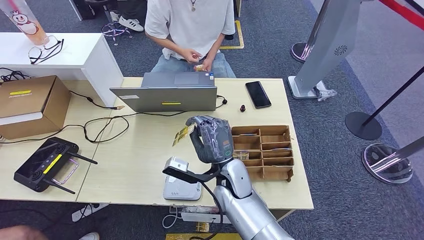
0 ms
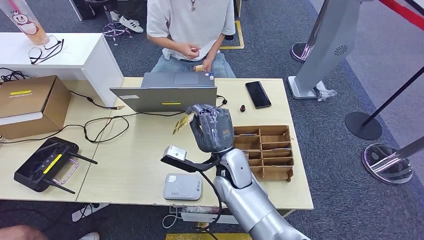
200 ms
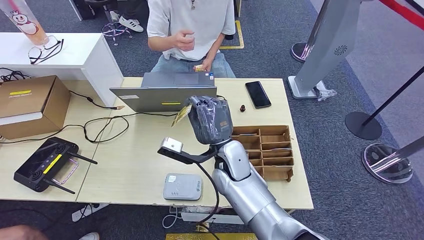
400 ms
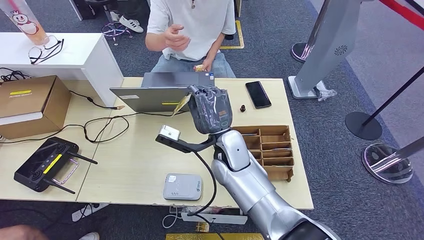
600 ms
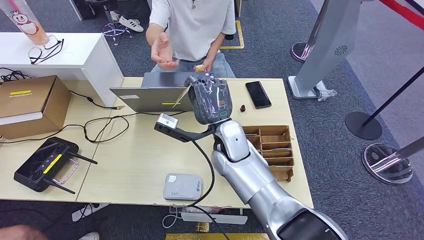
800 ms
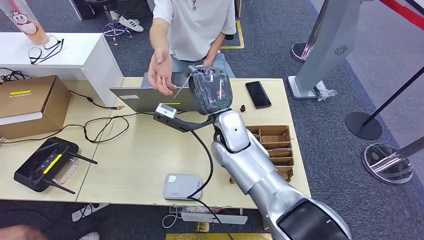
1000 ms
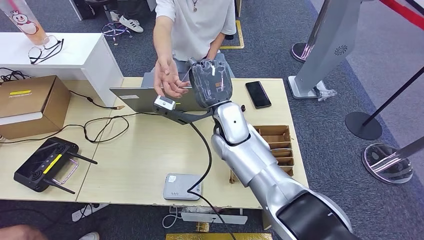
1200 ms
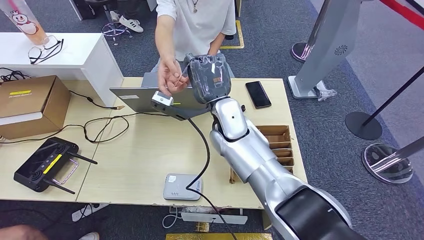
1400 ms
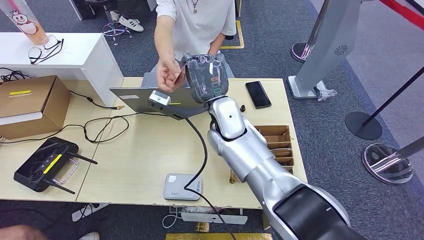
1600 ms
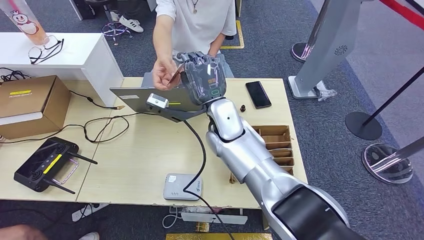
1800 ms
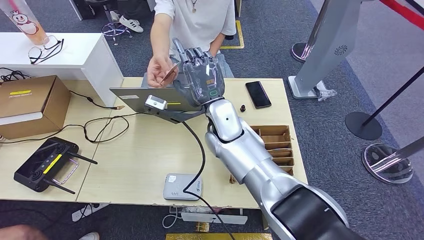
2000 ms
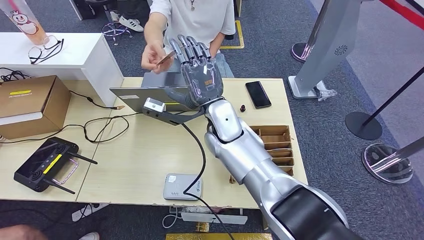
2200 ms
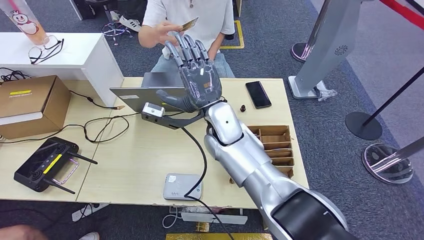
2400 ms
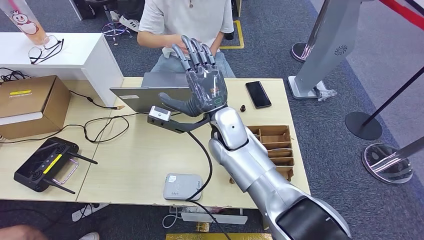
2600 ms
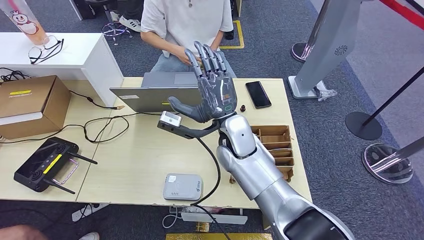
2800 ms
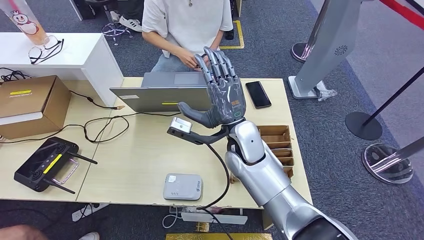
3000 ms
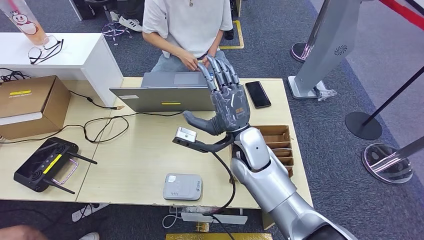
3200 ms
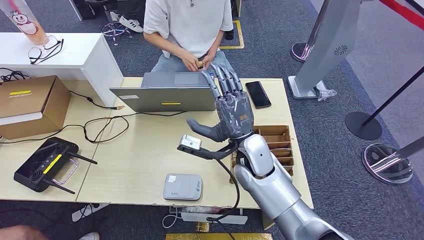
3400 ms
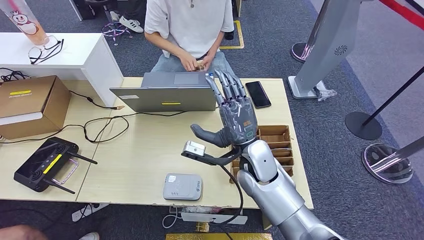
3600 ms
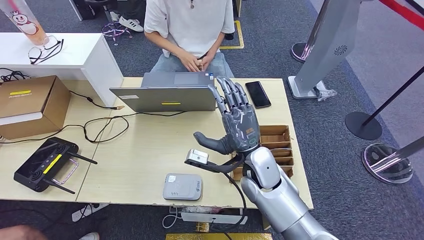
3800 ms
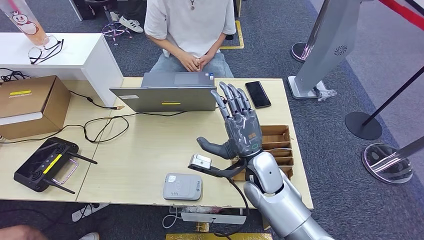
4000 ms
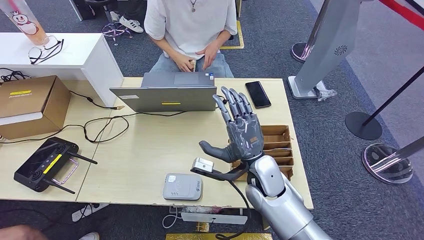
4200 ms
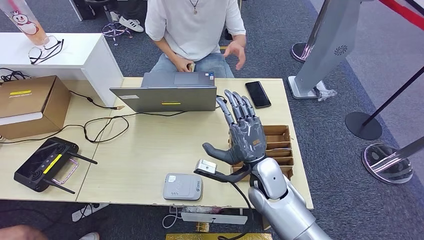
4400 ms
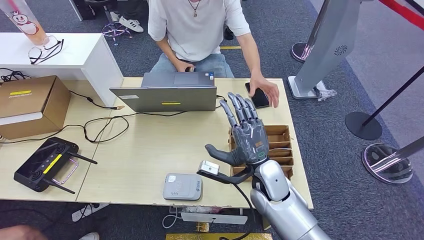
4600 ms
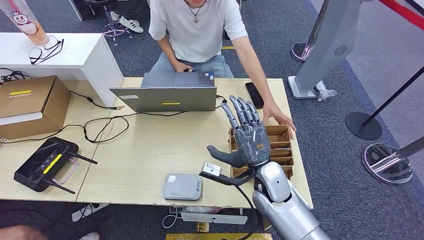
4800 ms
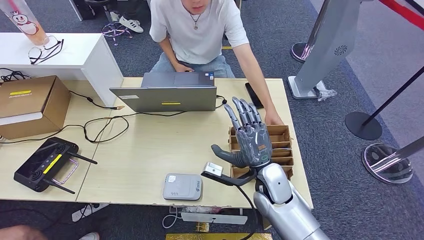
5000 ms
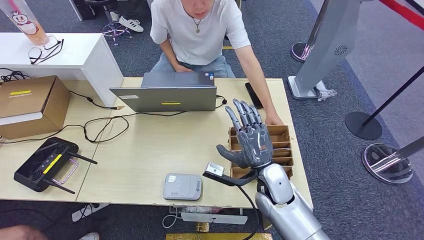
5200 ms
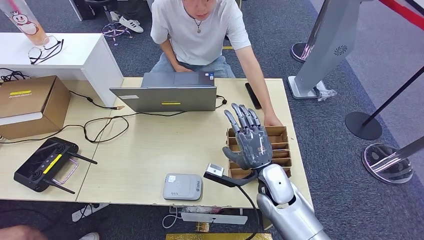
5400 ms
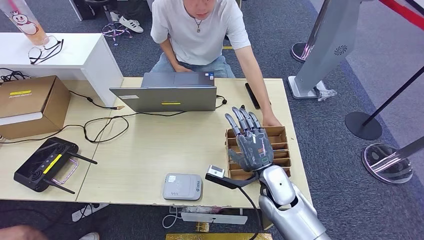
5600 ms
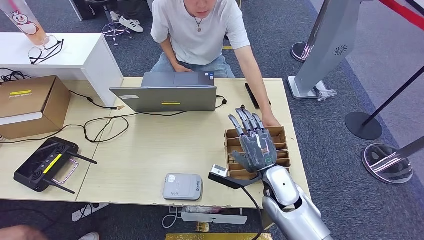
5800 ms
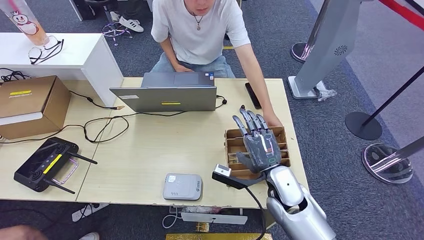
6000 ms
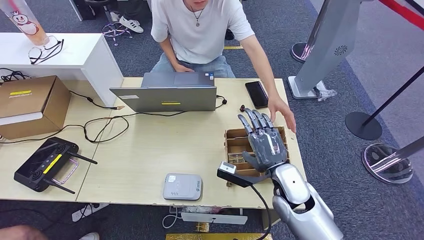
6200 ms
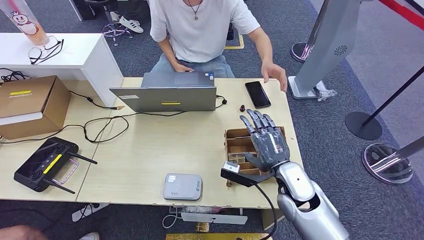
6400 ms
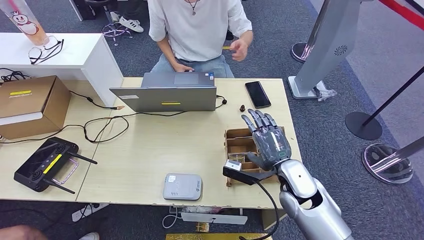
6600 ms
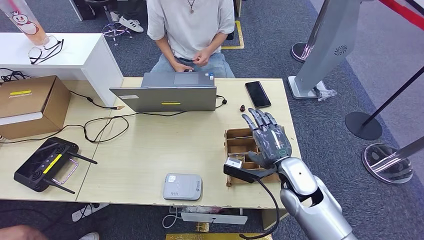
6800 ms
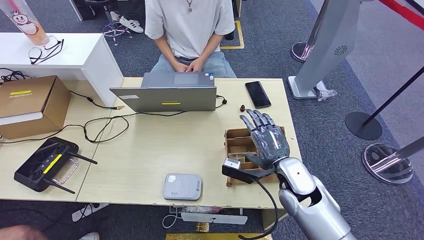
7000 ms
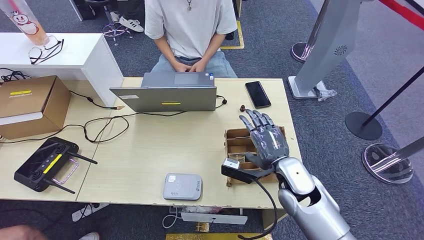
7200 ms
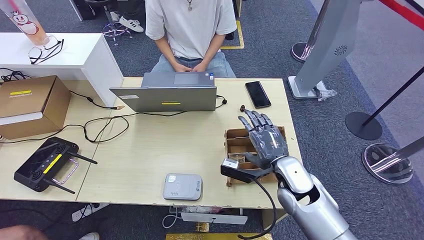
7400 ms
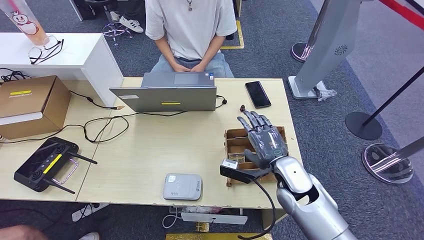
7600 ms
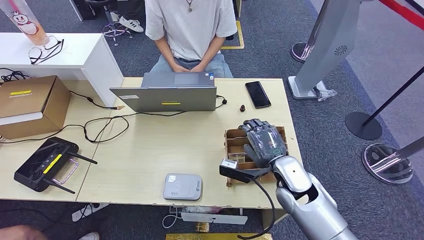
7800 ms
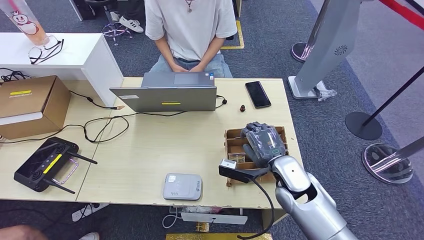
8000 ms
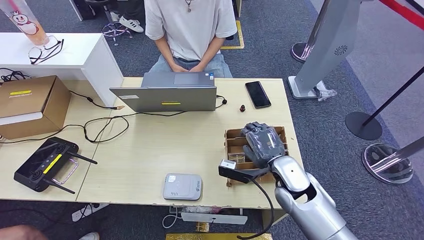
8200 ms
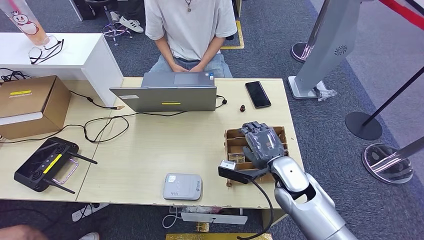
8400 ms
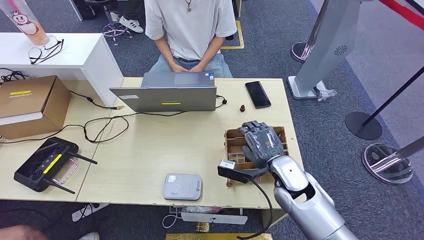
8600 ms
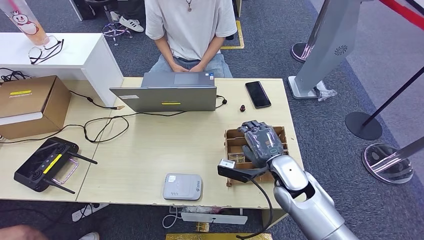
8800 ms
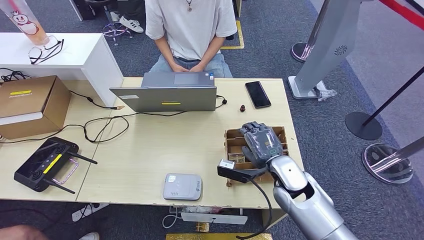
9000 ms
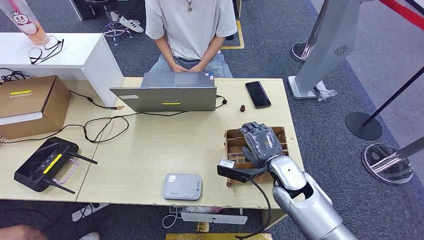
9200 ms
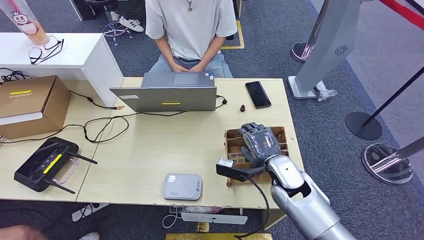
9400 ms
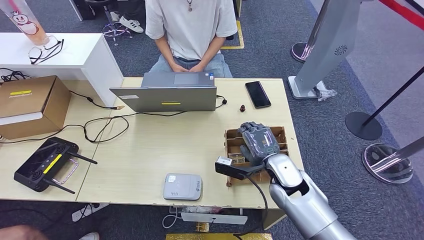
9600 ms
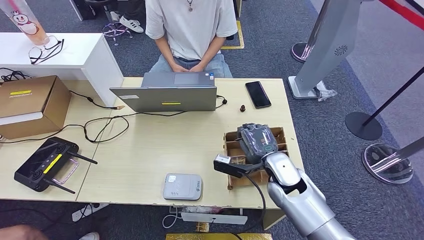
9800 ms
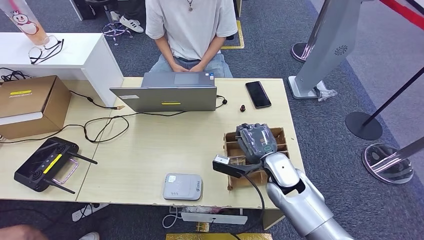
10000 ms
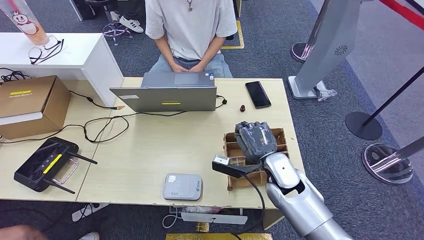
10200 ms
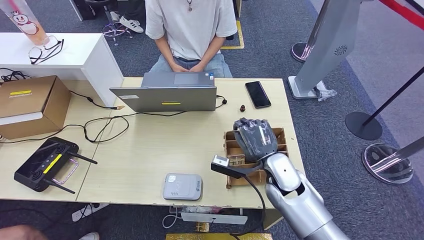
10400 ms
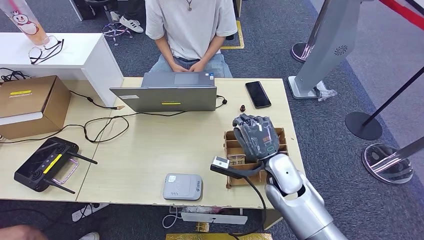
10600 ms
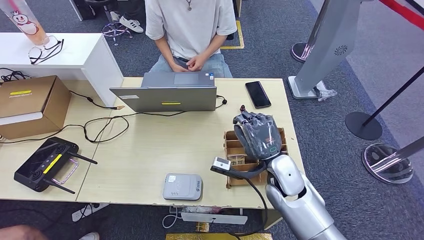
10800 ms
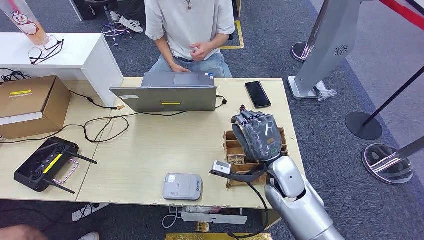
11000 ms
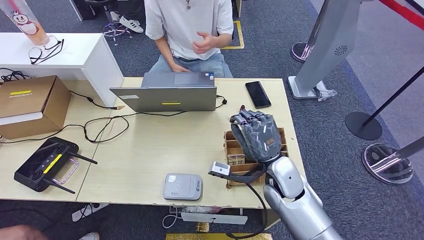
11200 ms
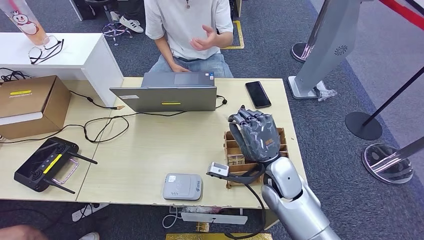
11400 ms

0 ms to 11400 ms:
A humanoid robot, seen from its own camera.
Step, 0 ms to 2600 ms: Hand the ID card to the person.
Step, 7200 ms to 10400 ms: Pick up the room key from the key card box.
0 ms to 1400 ms: The right hand moves upward and forward, some 15 cm.
1400 ms to 2800 ms: The hands make only small movements.
2800 ms to 4200 ms: The right hand goes some 10 cm downward, backward and to the right.
4200 ms to 5600 ms: The right hand ends up approximately 5 cm from where it was.
5600 ms to 7200 ms: The right hand ends up approximately 5 cm from where it was.
7200 ms to 8600 ms: Neither hand changes place.
8600 ms to 10000 ms: There are only small adjustments of the hands.

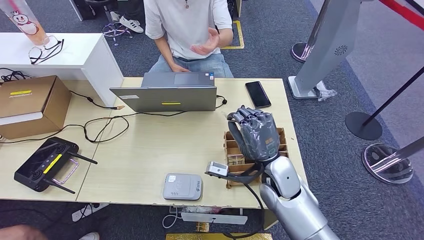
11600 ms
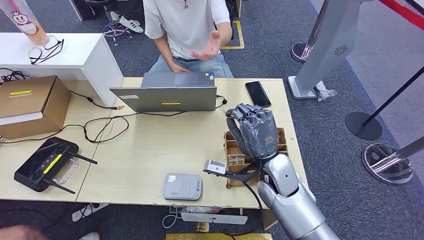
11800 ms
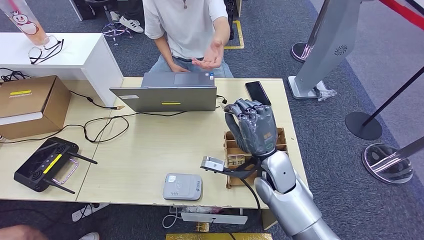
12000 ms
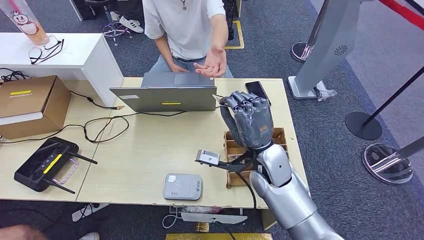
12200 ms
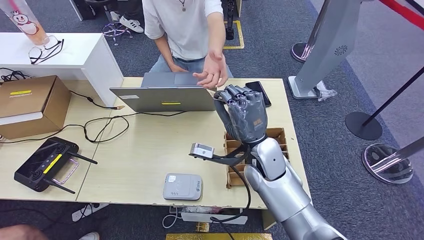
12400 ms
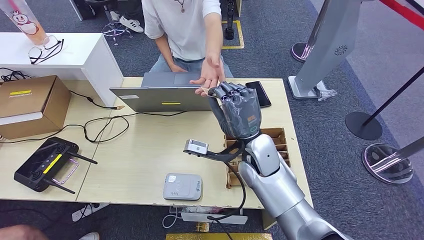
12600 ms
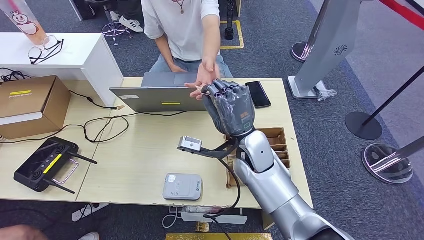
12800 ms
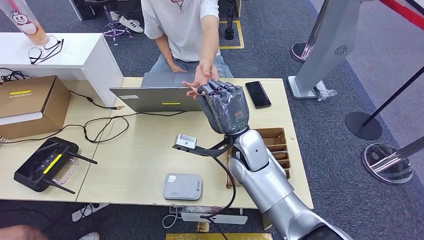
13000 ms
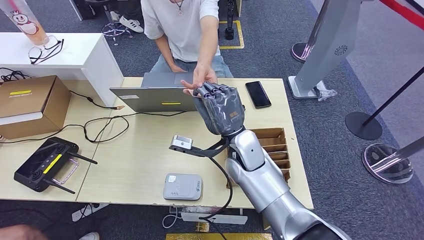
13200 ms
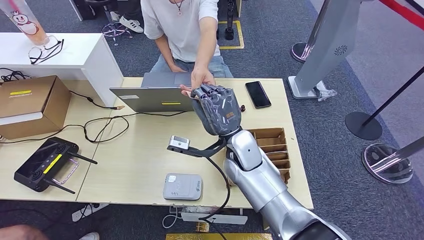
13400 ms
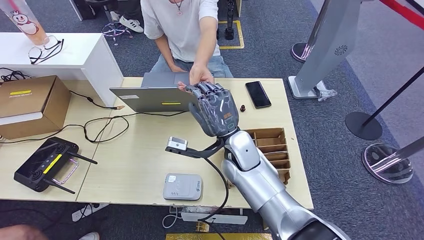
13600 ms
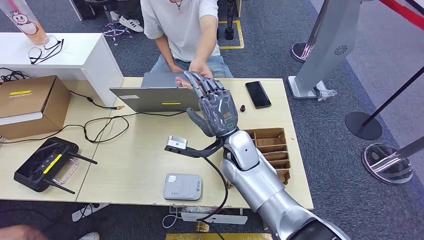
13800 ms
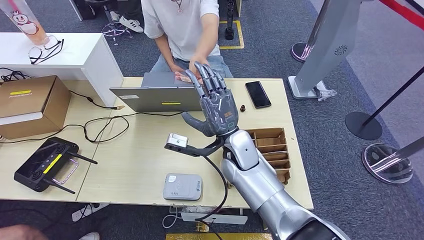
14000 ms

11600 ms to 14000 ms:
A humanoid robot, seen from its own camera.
Step, 11600 ms to 14000 ms: Hand the room key to the person.
11600 ms to 12800 ms: The right hand goes about 5 cm to the left.
12800 ms to 14000 ms: The hands make only small movements.

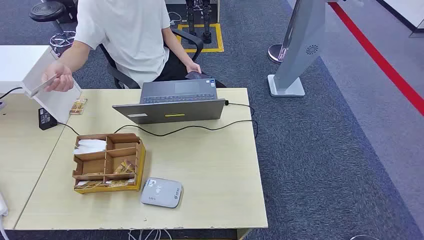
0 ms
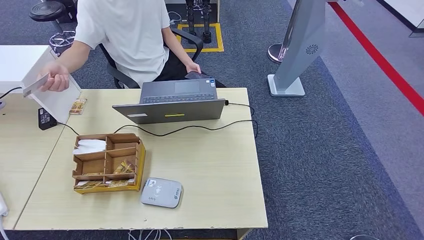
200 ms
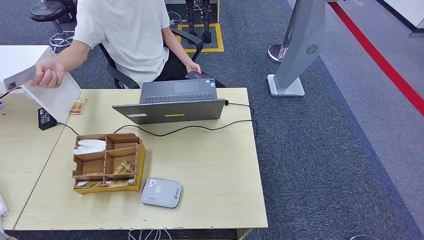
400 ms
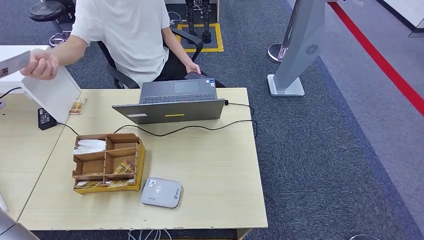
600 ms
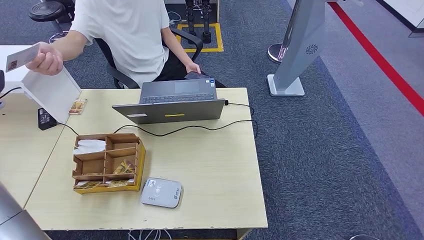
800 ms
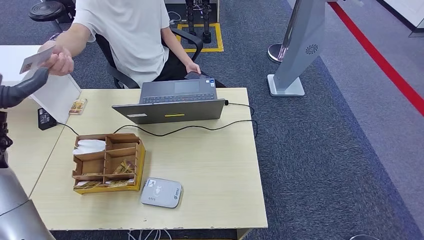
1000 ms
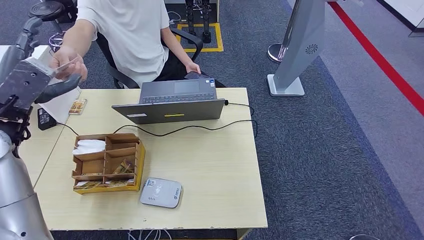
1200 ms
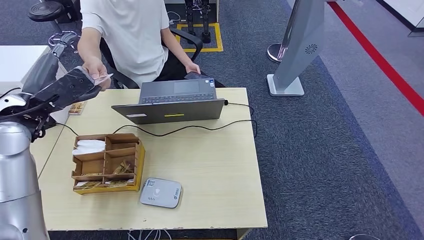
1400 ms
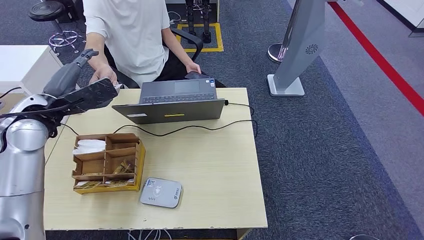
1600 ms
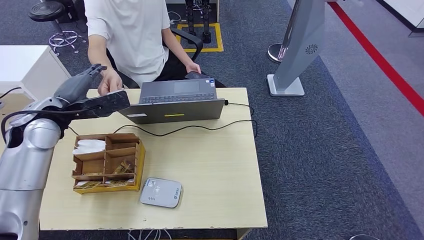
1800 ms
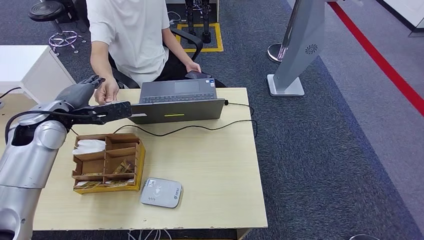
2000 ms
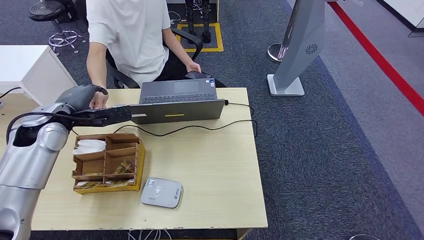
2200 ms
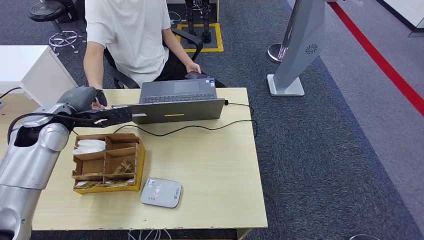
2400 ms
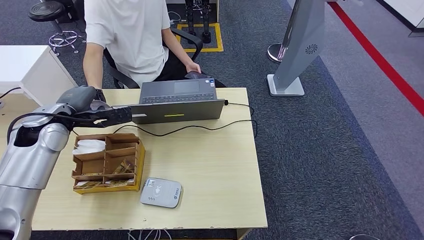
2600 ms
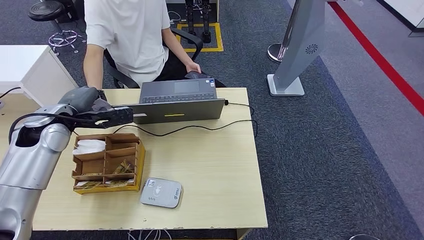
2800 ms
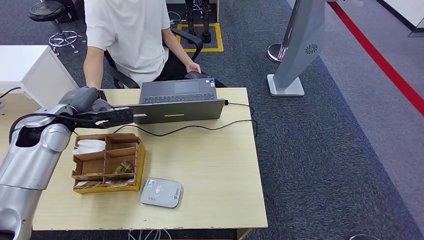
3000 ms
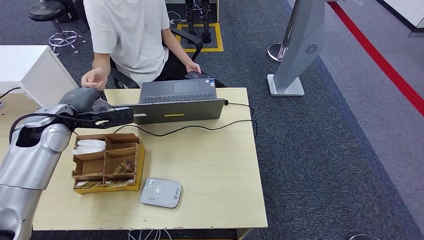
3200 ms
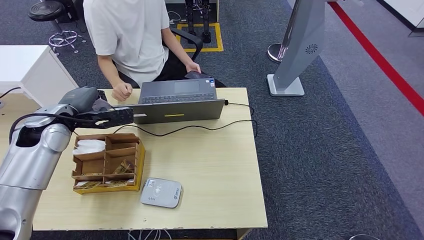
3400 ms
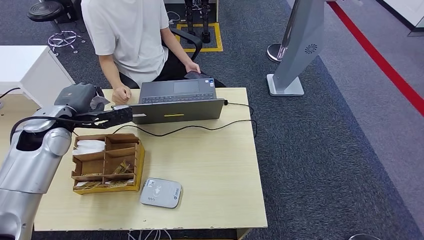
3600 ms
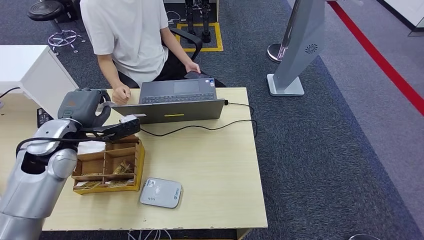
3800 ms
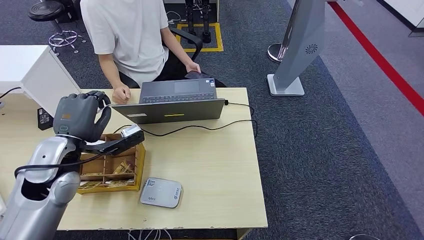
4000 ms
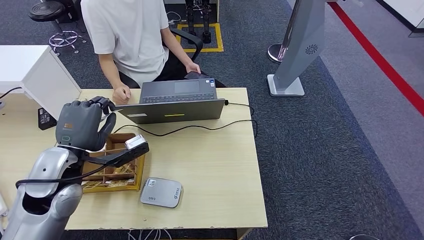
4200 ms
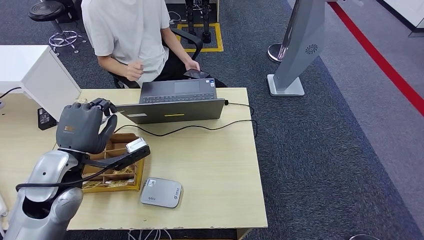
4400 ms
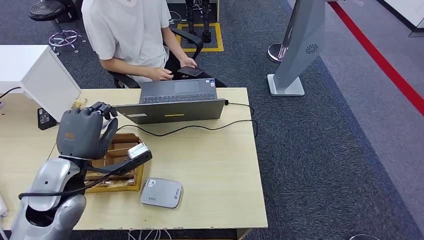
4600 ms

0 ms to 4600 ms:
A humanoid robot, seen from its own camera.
Step, 0 ms to 2600 ms: Take the ID card from the person's hand.
1600 ms to 3000 ms: The left hand is displaced downward by about 5 cm.
3000 ms to 4600 ms: The left hand is displaced backward and to the right by some 15 cm.
